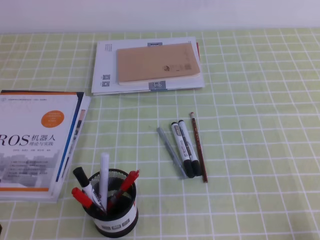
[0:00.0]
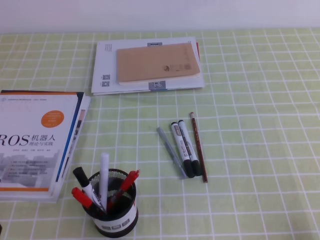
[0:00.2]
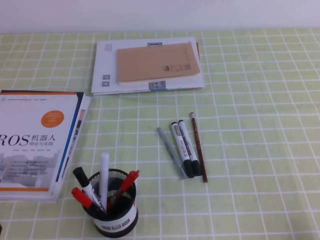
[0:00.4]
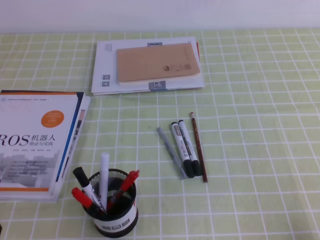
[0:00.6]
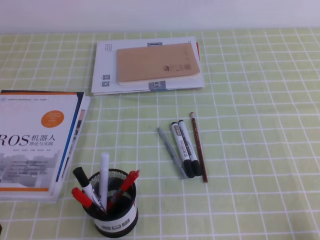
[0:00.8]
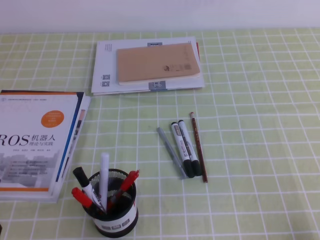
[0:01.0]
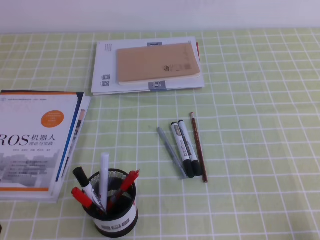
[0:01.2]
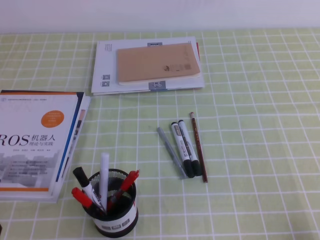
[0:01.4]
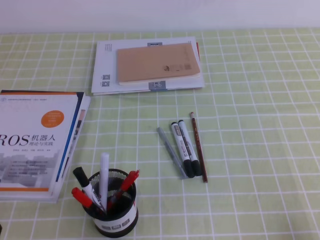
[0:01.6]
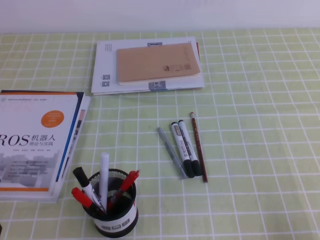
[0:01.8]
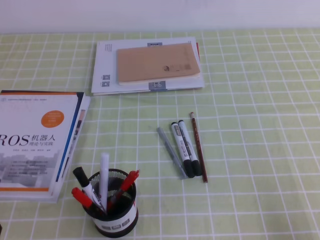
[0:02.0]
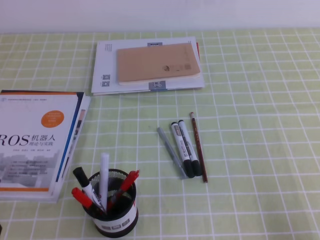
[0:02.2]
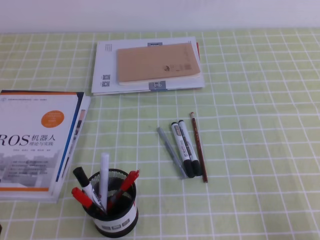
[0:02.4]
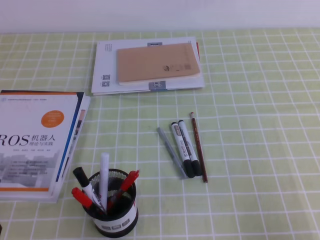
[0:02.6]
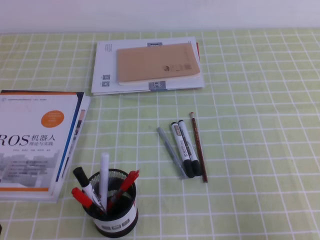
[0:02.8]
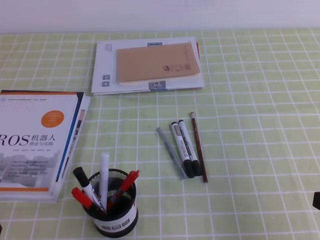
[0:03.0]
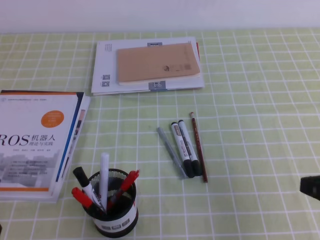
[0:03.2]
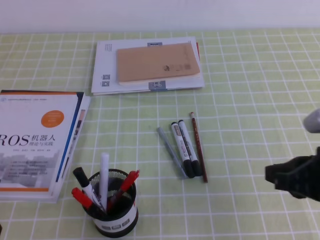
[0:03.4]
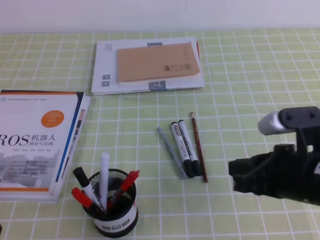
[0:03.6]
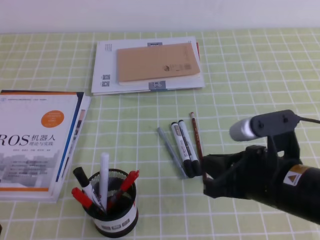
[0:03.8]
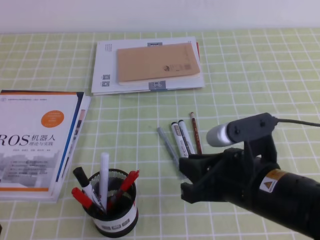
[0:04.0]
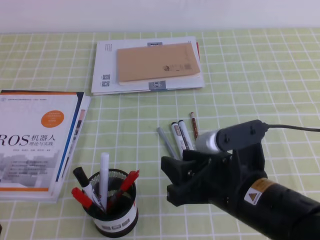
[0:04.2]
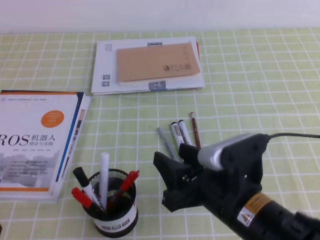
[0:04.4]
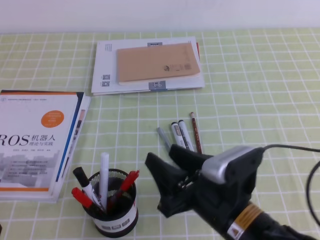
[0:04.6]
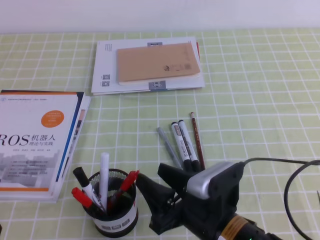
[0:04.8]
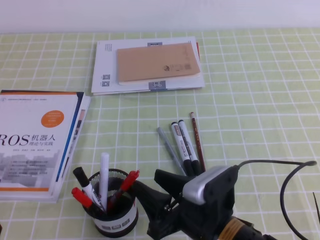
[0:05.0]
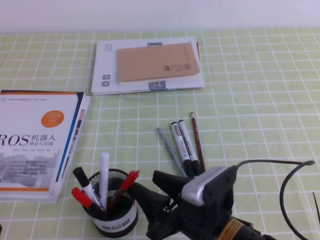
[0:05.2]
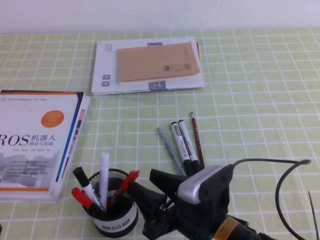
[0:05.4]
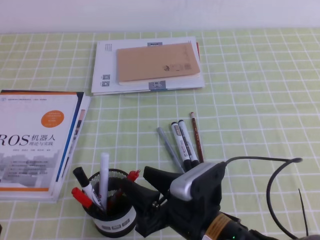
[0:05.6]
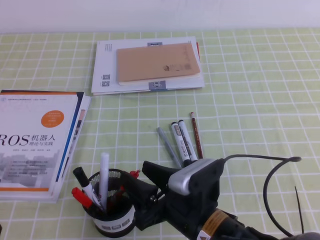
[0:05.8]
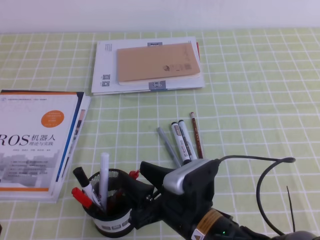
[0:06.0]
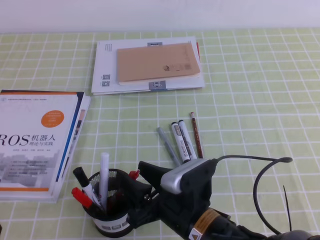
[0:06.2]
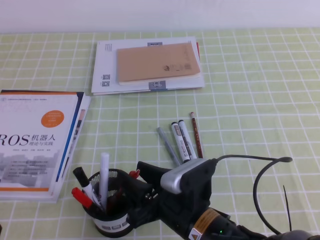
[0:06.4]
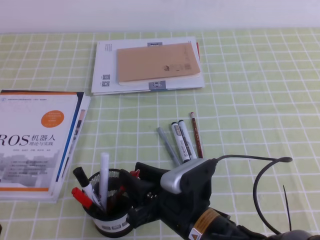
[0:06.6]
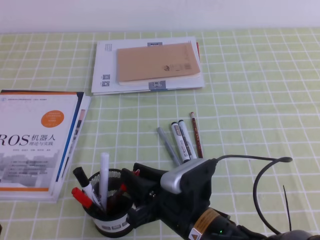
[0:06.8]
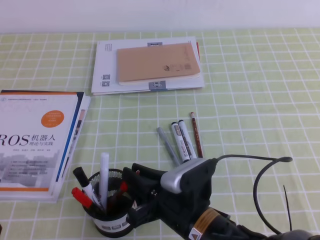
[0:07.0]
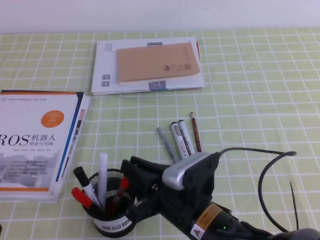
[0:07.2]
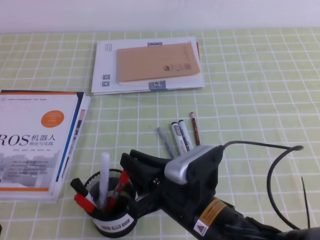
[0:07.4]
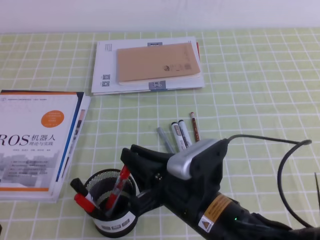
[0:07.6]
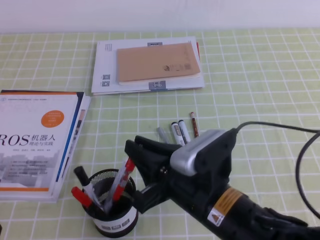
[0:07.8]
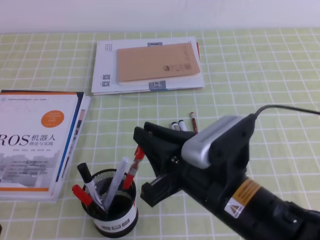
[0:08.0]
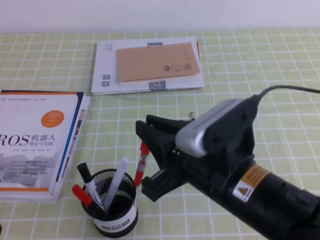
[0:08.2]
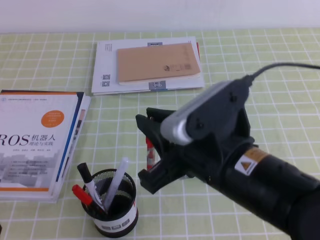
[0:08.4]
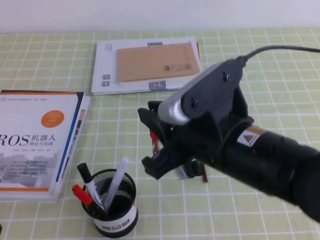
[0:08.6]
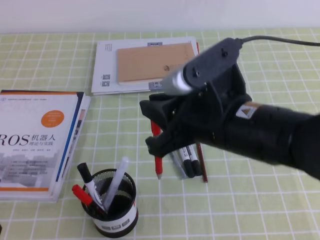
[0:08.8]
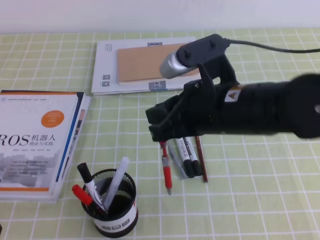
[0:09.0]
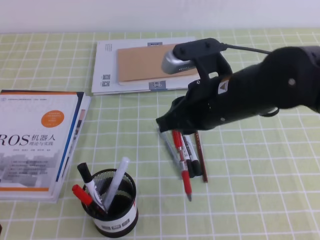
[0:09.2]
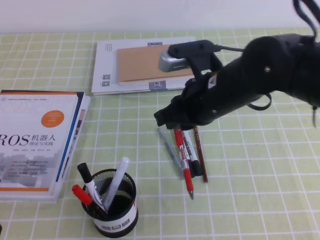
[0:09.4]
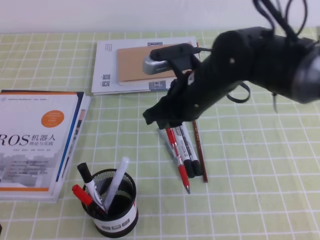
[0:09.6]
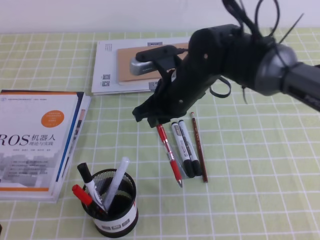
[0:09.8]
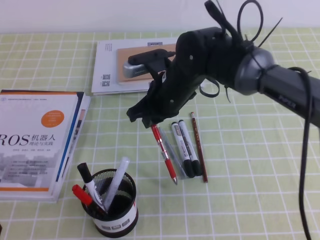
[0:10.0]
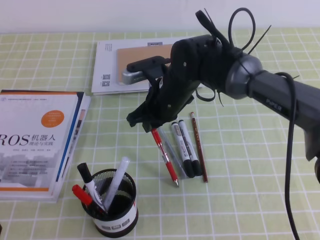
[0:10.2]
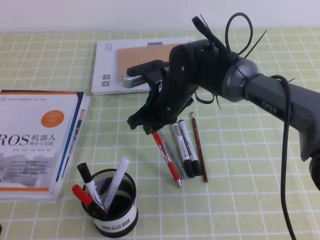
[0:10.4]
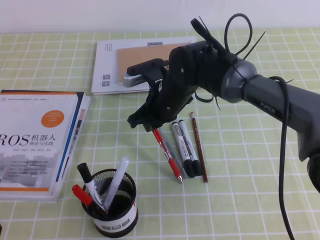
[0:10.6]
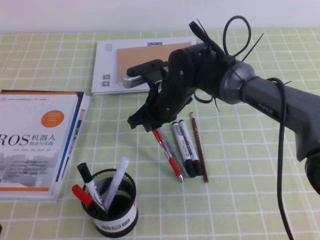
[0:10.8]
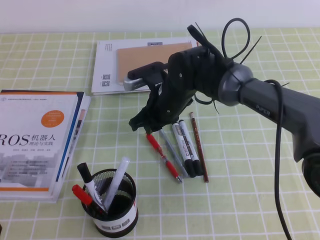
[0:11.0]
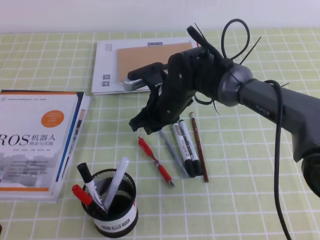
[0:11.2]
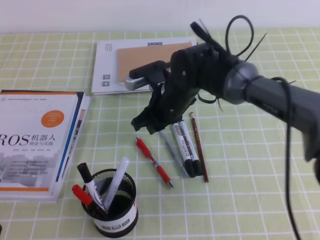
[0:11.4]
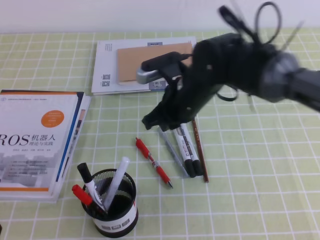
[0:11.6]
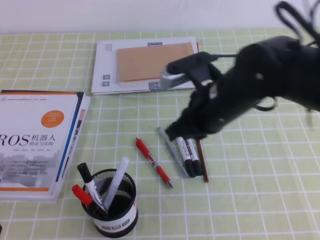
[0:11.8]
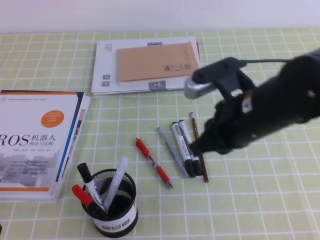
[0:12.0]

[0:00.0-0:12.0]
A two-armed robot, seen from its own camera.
1.6 to 3.0 s: The right gripper moves upward and forward, about 10 cm.
3.0 to 4.4 s: The right gripper goes roughly 20 cm to the left, and opens up.
4.4 to 6.0 s: The right gripper moves downward and to the left, about 10 cm.
6.0 to 7.6 s: The right gripper closes.
7.6 to 9.0 s: The right gripper travels upward and forward by about 15 cm.
9.0 to 10.4 s: The right gripper travels forward, downward and to the left by approximately 20 cm.
10.4 to 12.0 s: The right gripper travels backward, to the right and upward by roughly 15 cm.

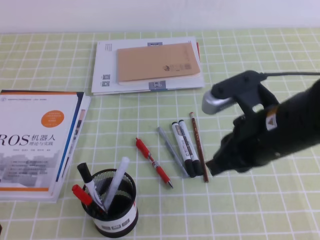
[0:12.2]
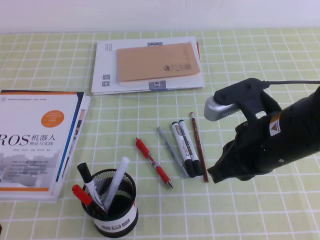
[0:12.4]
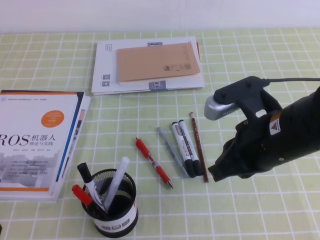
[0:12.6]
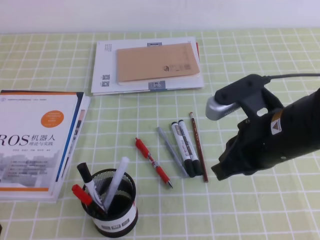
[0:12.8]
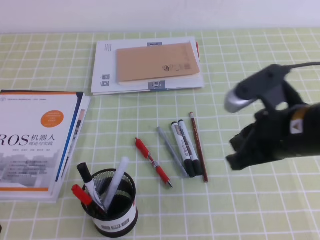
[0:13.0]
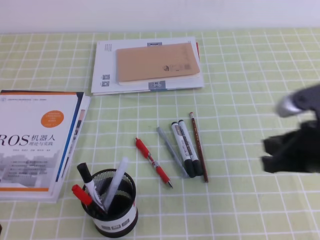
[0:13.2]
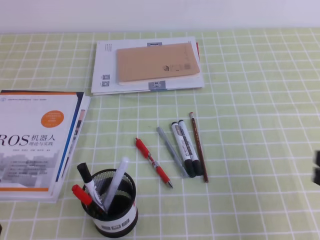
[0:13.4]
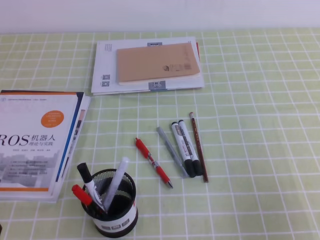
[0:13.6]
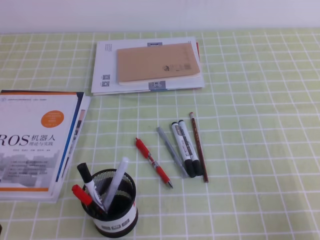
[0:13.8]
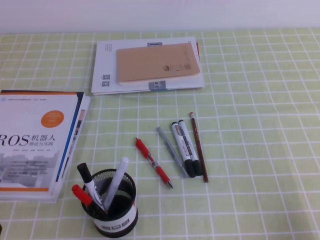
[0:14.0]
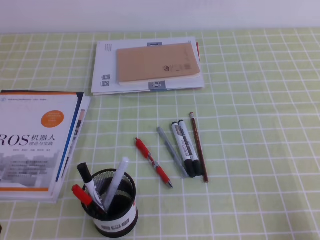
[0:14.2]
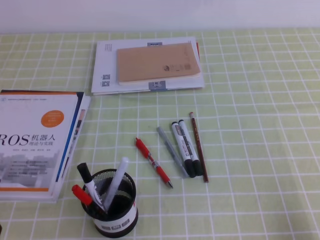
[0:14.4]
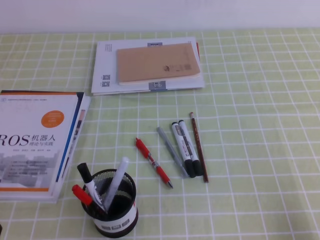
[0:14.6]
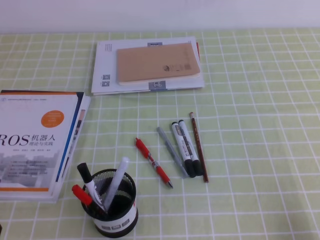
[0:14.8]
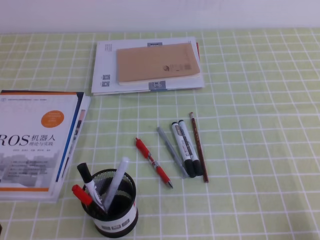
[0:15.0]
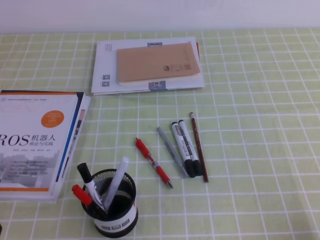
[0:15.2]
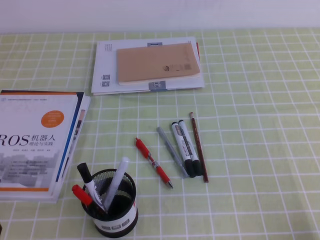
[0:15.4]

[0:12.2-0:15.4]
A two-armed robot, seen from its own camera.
Step, 12.2 to 15.4 s: Pick up the pen from the pen holder.
12.2 to 13.8 s: The right gripper moves to the right, backward and downward, about 25 cm.

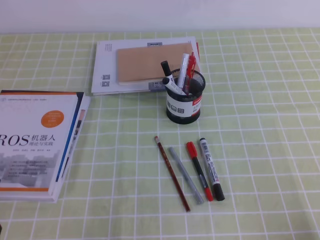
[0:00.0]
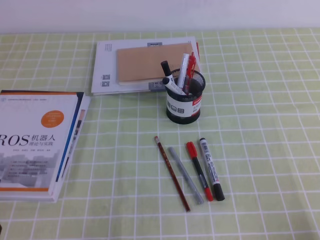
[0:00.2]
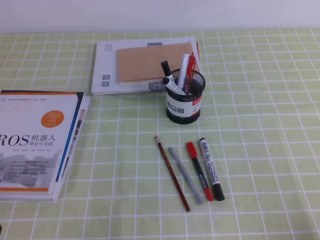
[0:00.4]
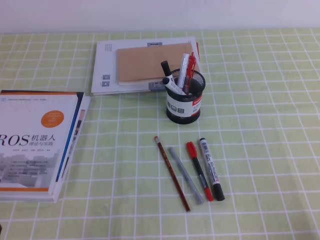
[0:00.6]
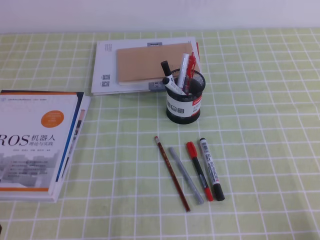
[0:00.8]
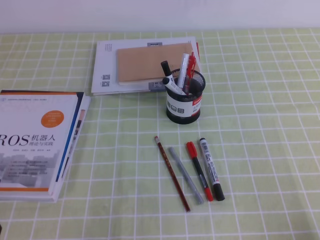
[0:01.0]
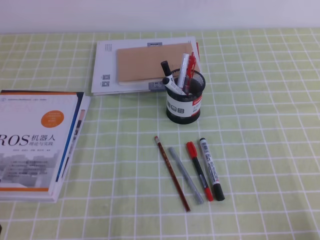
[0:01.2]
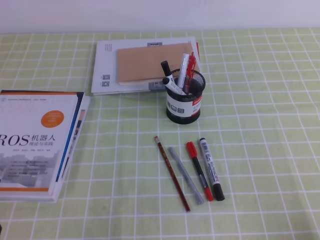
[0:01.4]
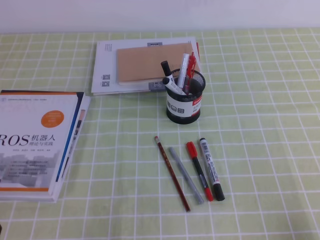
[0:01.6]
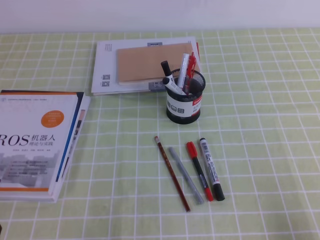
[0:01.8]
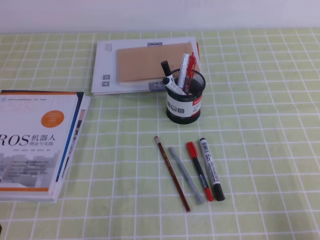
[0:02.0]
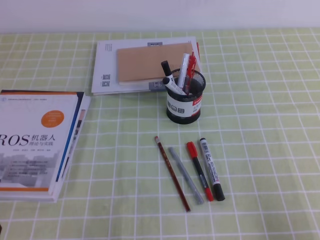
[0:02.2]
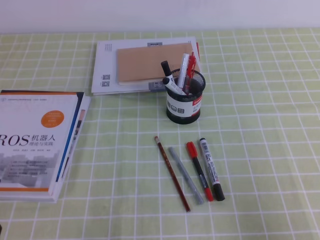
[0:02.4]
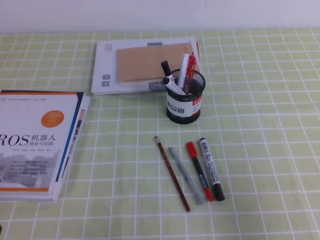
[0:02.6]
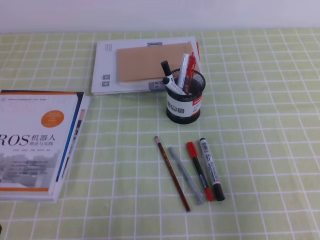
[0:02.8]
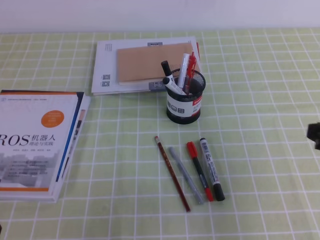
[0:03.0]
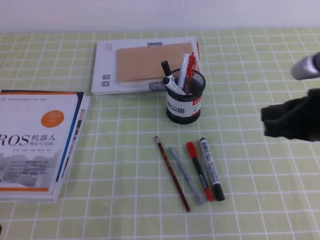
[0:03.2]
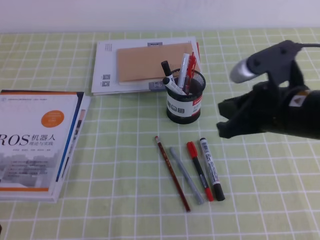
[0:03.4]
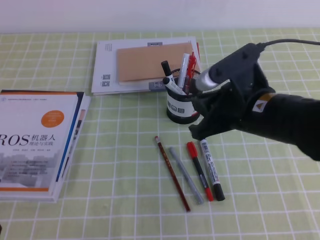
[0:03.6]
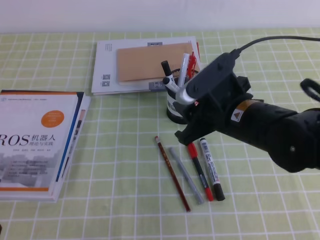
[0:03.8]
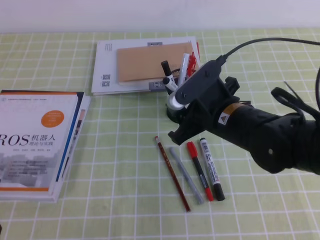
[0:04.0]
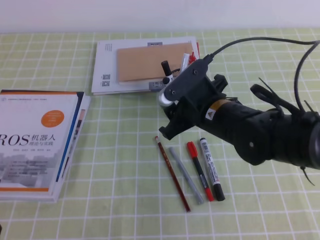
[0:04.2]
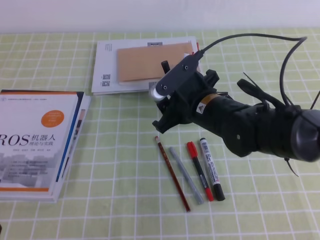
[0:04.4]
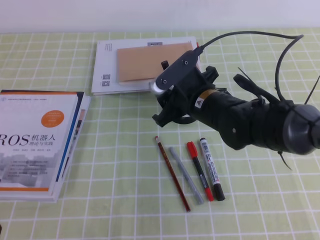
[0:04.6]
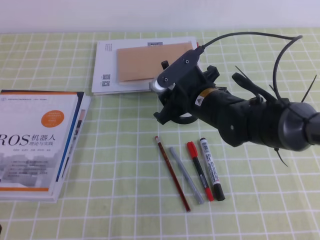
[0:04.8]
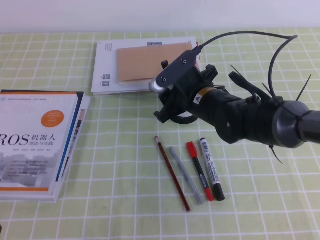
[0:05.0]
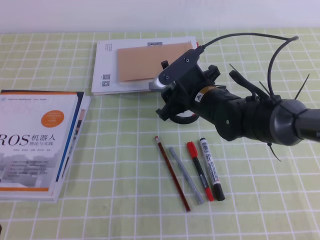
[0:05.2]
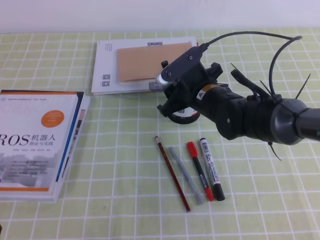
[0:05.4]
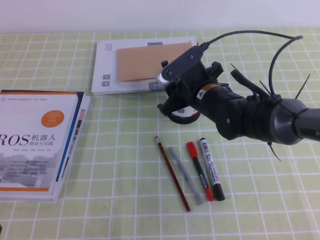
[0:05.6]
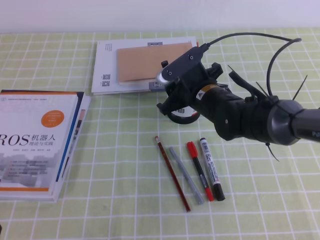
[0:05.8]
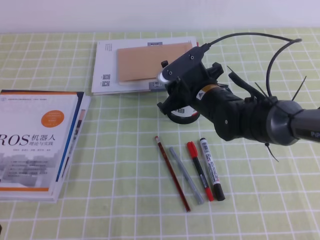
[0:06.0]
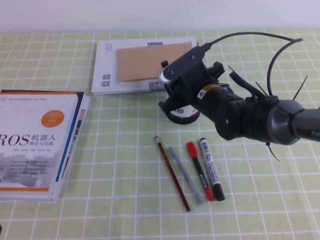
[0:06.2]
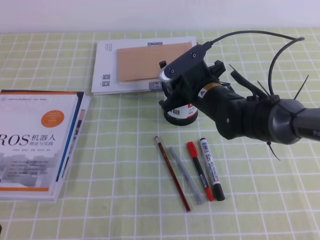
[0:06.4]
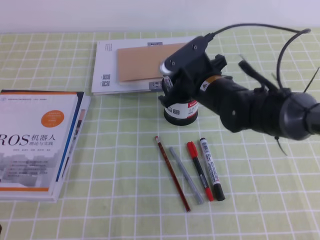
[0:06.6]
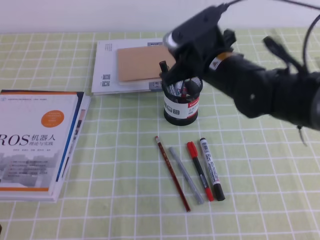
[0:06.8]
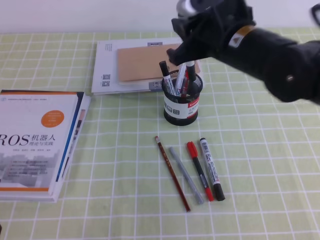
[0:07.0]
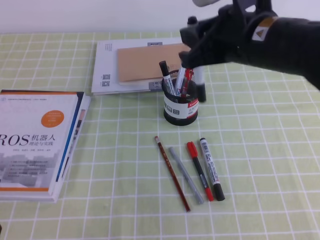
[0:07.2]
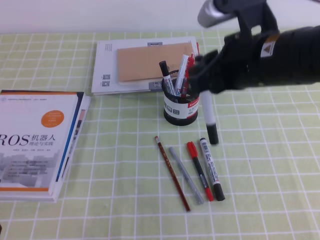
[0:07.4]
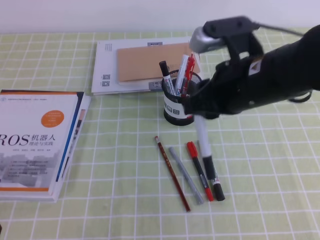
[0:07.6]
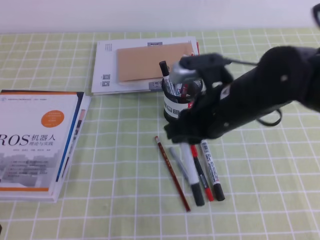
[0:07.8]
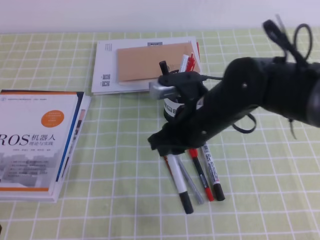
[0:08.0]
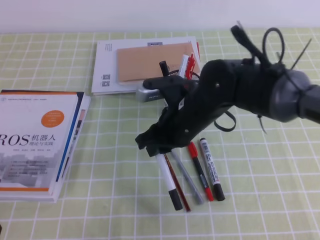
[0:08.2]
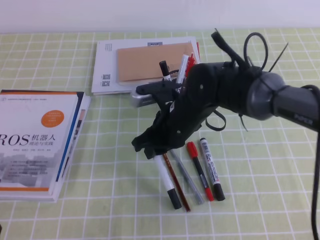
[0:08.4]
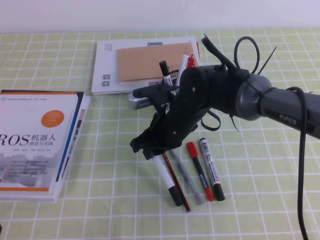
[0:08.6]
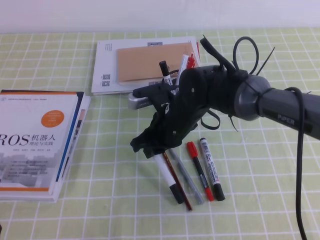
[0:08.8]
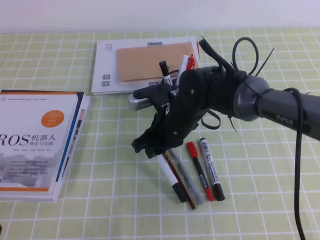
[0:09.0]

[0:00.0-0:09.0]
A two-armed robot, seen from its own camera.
1.6 to 3.0 s: The right gripper moves forward and upward, approximately 15 cm.
3.0 to 4.4 s: The right gripper shifts roughly 25 cm to the left and forward, and opens its fingers.
4.4 to 6.0 s: The right gripper heads forward, covering approximately 5 cm.
6.0 to 7.6 s: The right gripper moves upward, backward and to the right, about 15 cm.
7.6 to 9.0 s: The right gripper heads downward, to the left and forward, covering approximately 20 cm.
